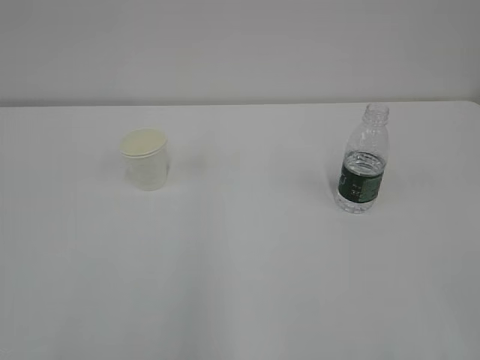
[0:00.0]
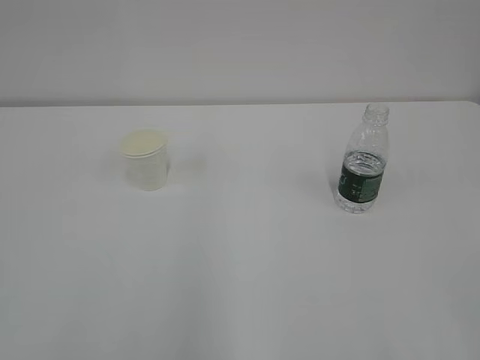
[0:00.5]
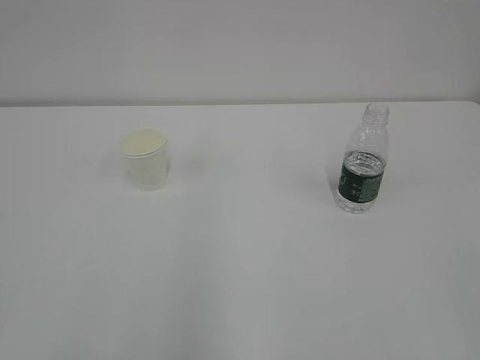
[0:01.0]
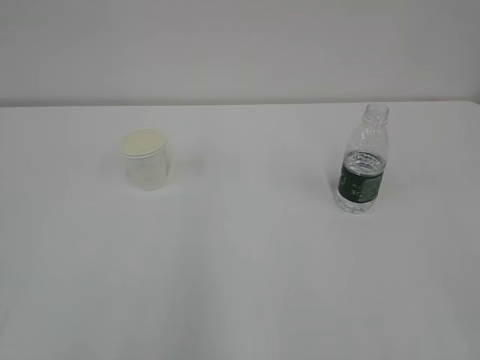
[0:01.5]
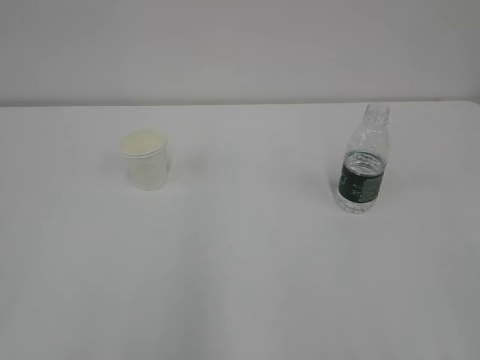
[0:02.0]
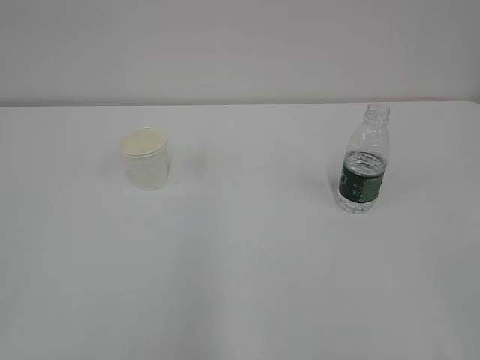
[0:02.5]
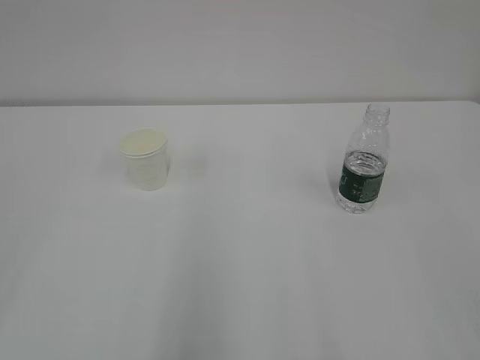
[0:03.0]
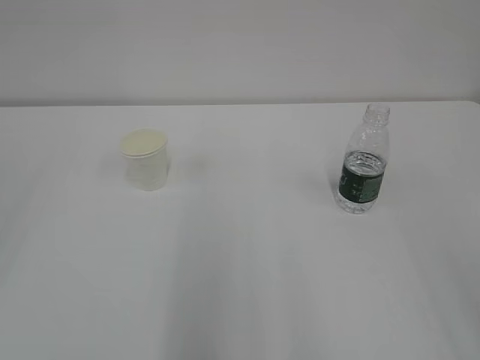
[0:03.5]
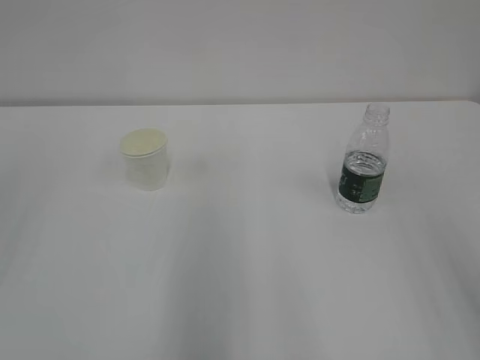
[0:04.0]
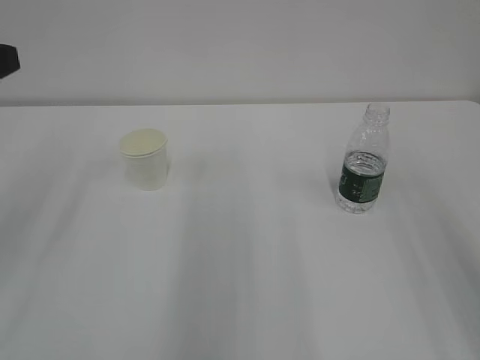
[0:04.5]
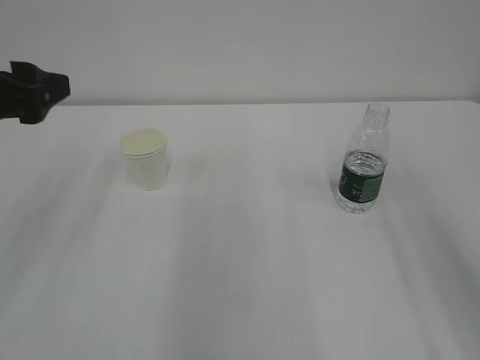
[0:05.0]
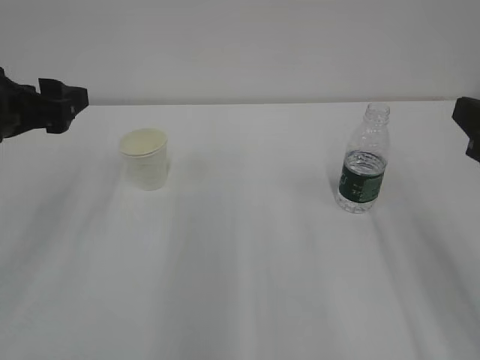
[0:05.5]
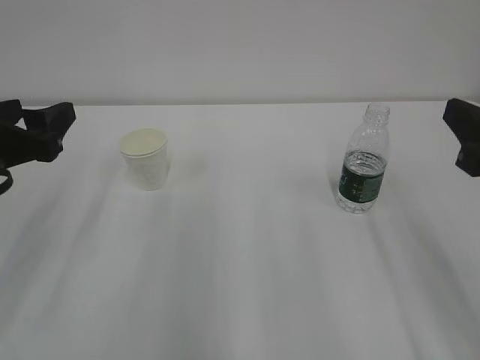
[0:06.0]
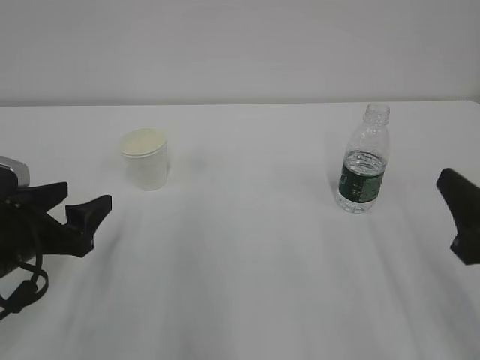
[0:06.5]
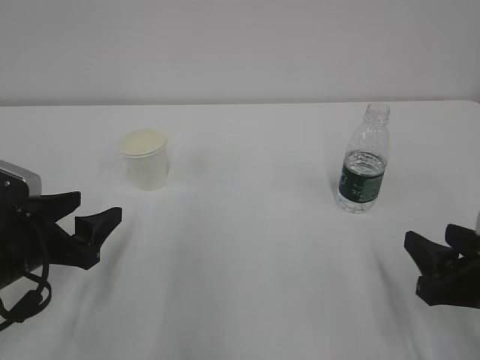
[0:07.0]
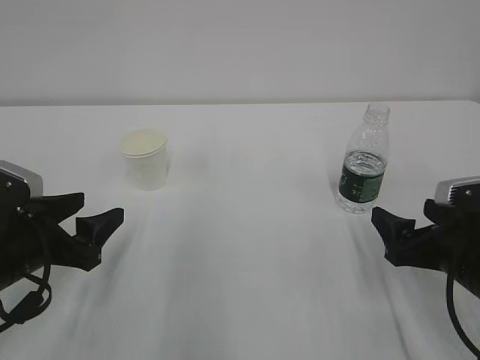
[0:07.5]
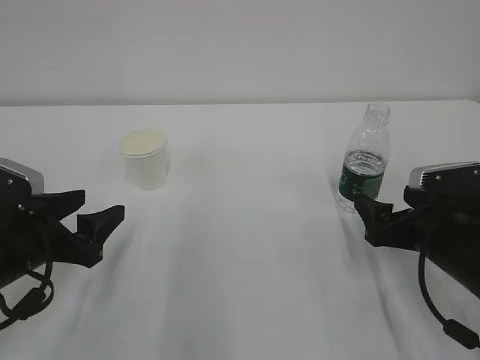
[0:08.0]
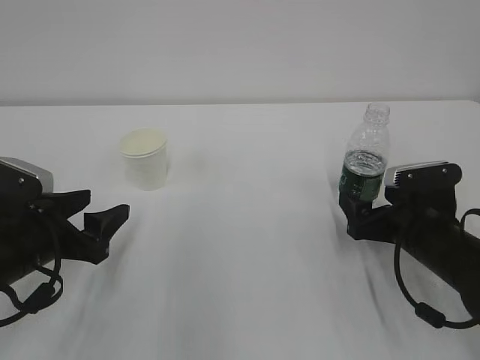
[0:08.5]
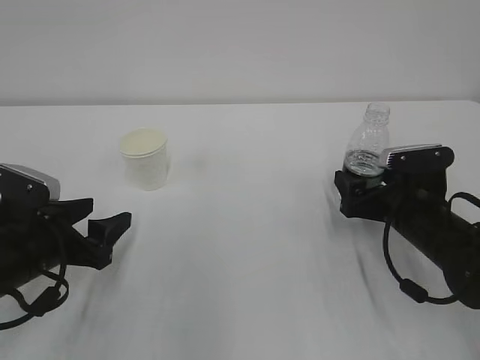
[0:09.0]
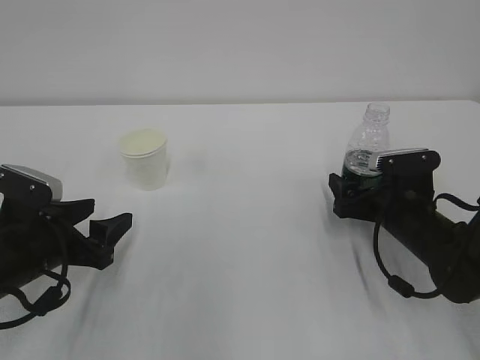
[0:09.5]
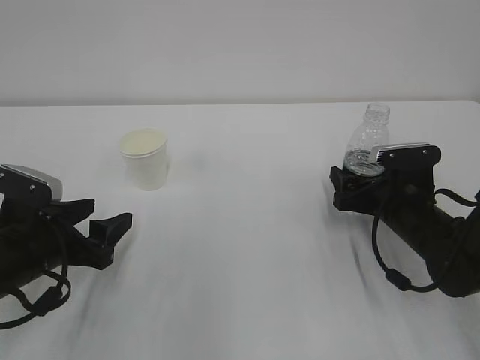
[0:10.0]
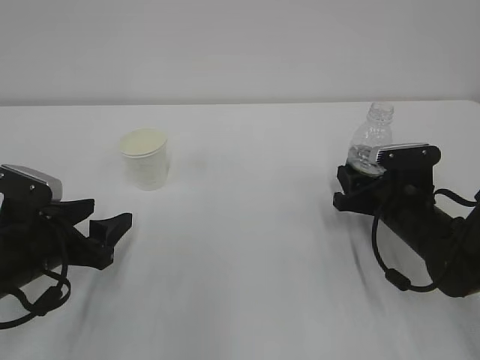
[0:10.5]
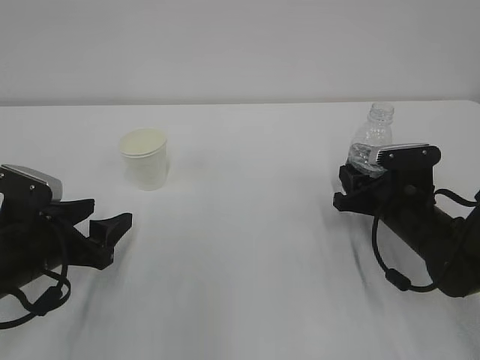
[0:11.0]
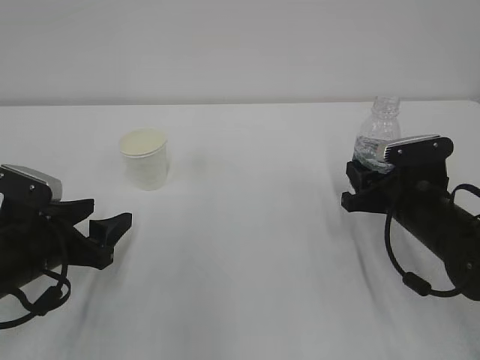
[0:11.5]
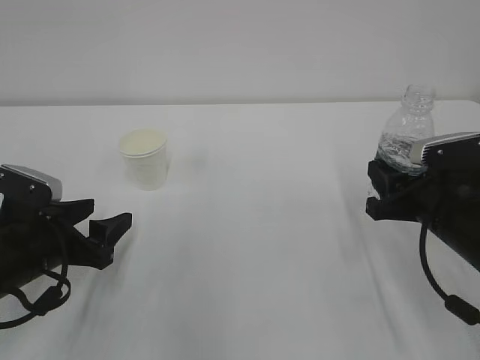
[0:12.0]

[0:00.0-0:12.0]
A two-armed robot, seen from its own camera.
0:04.0 to 0:06.0: The right gripper heads forward and downward, covering roughly 15 cm. The left gripper moves downward, forward and to the right, some 15 cm, and opens its fingers.
0:06.0 to 0:08.0: The left gripper goes about 10 cm downward. The right gripper travels downward and forward by about 15 cm, and opens its fingers.
0:08.0 to 0:10.0: The right gripper heads forward, covering about 10 cm.
0:10.0 to 0:12.0: The right gripper is displaced backward and upward by about 10 cm, and closes up.

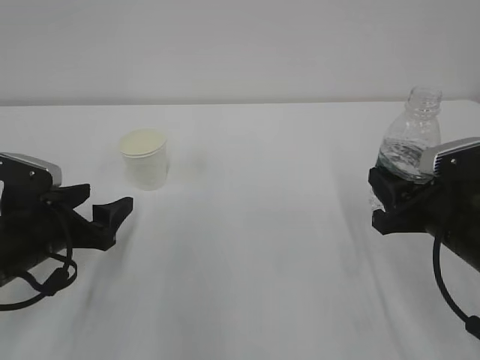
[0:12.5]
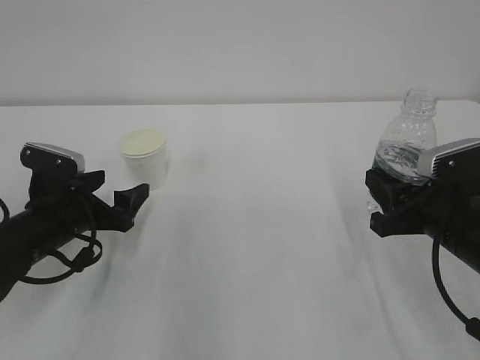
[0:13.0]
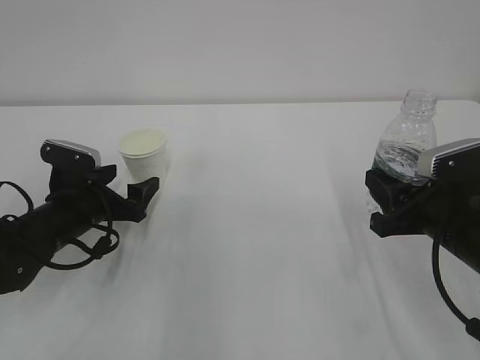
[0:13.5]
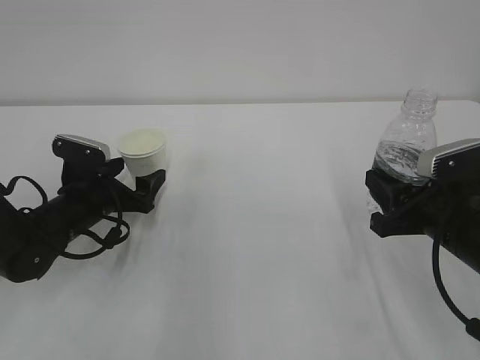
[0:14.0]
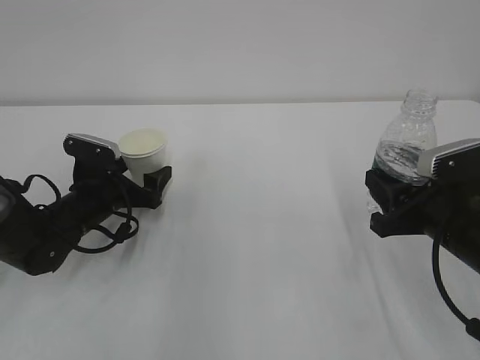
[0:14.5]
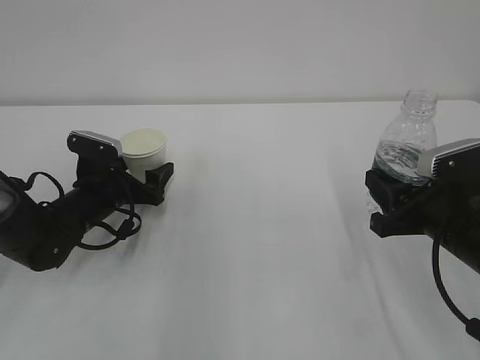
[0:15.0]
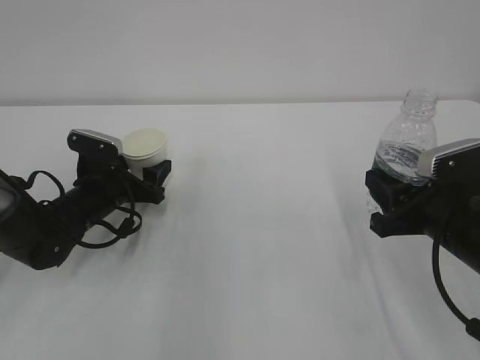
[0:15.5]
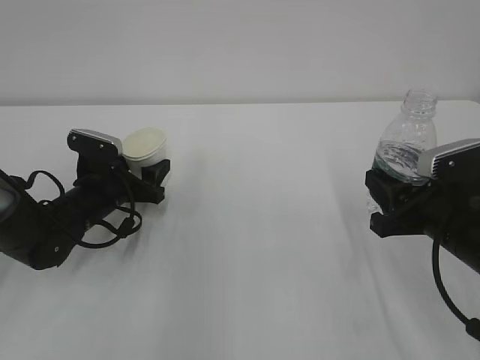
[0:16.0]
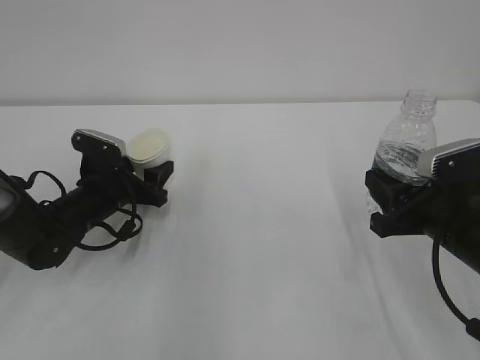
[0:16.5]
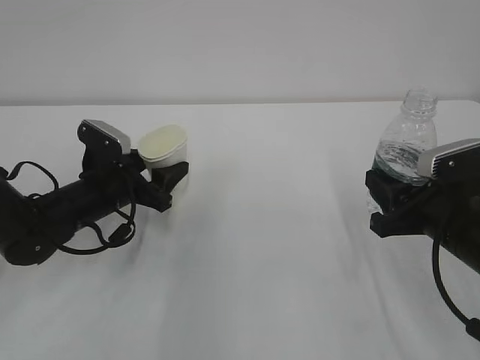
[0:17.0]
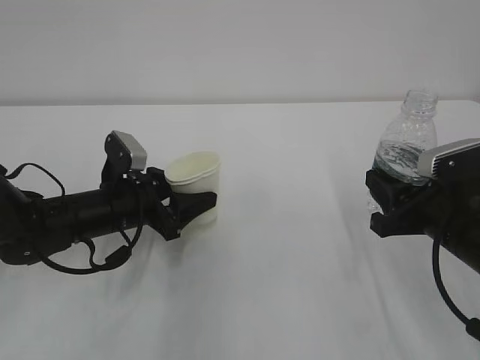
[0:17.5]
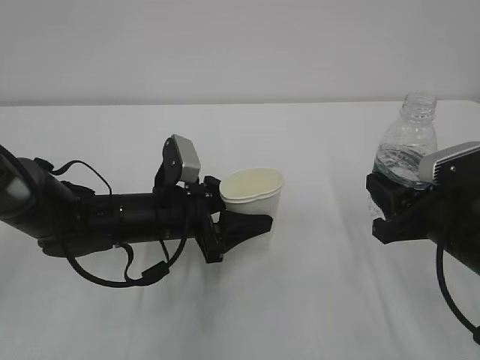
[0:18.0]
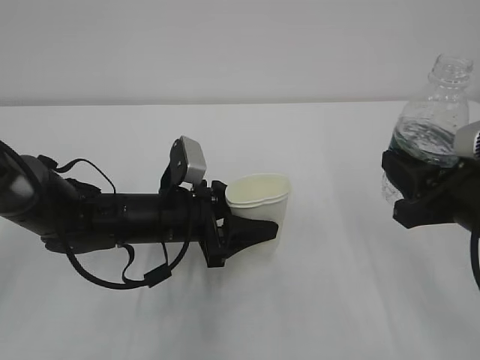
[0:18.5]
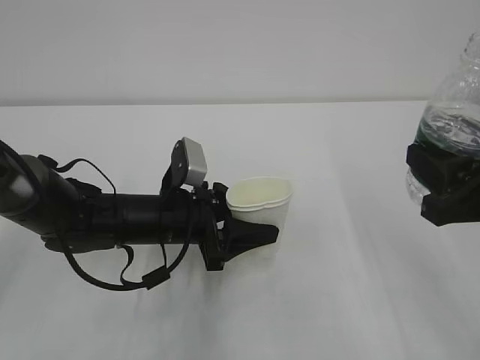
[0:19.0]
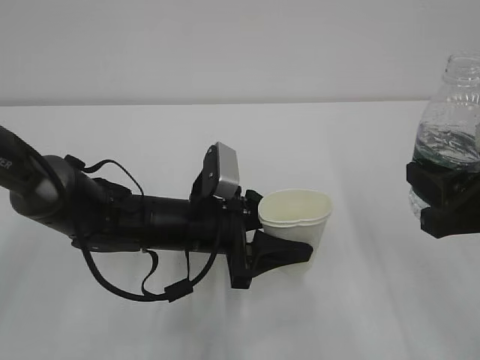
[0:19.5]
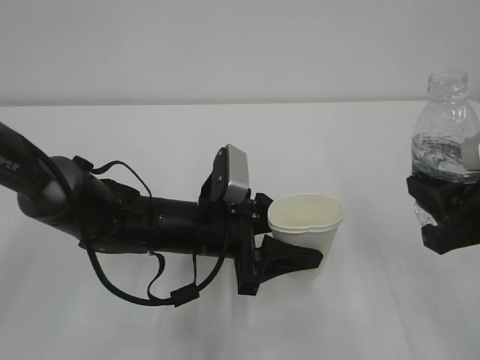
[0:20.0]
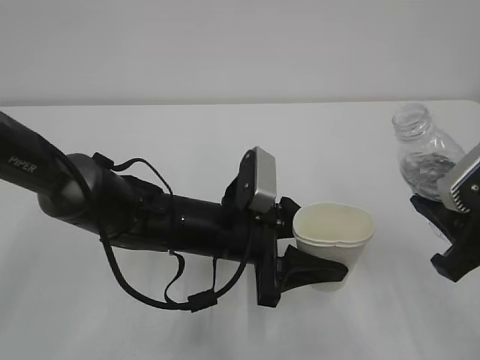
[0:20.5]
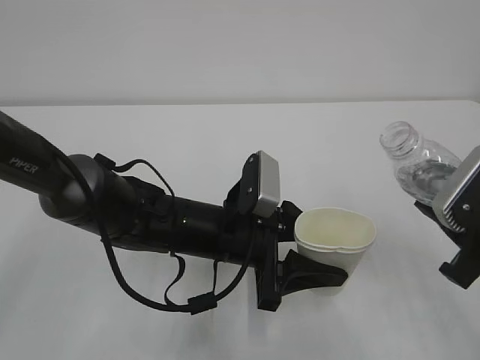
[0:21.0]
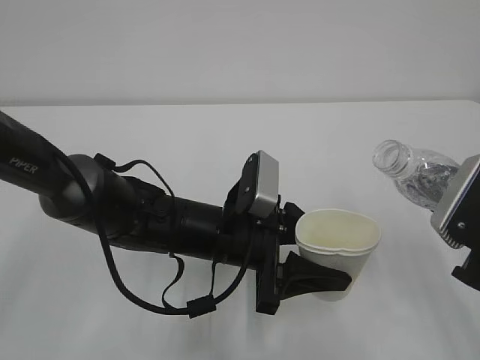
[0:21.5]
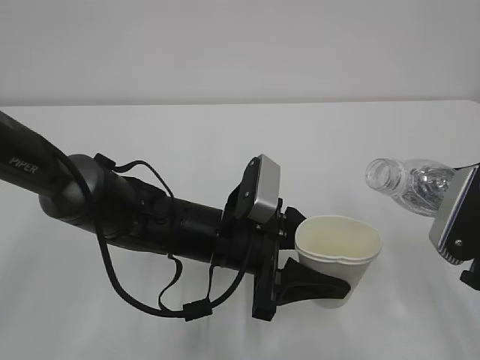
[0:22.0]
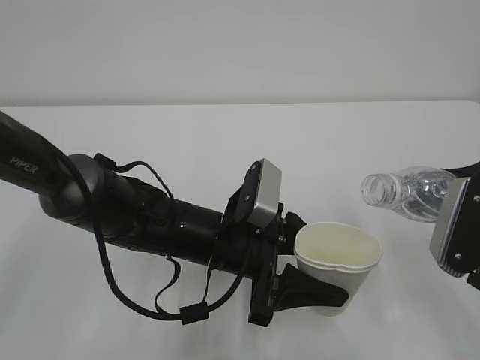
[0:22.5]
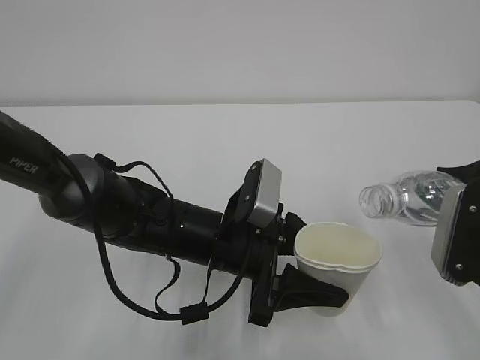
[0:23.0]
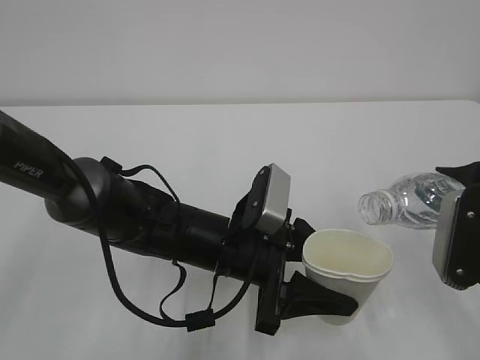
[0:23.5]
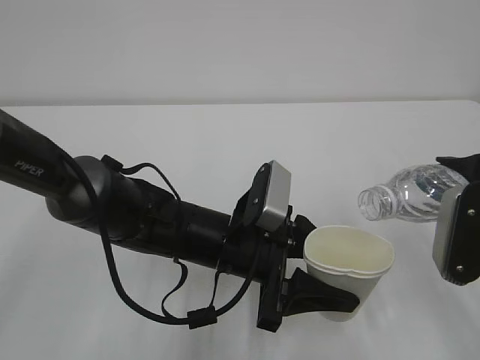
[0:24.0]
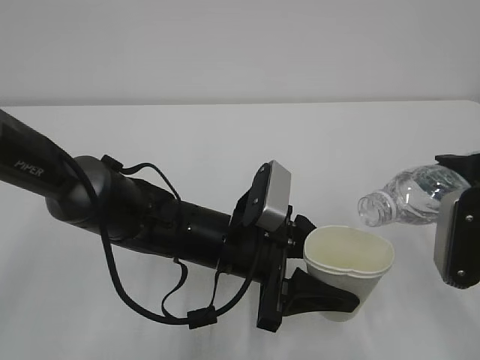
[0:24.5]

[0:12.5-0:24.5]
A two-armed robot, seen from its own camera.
0:12.5 to 0:14.5: The left gripper moves forward, roughly 10 cm.
0:14.5 to 0:16.5: The left gripper closes up.
0:16.5 to 0:18.5: The left gripper is displaced to the right and backward by roughly 15 cm. Meanwhile the right gripper shifts by about 5 cm.
0:18.5 to 0:20.5: The left gripper goes roughly 5 cm to the right.
0:22.5 to 0:24.5: The grippers move only a little.

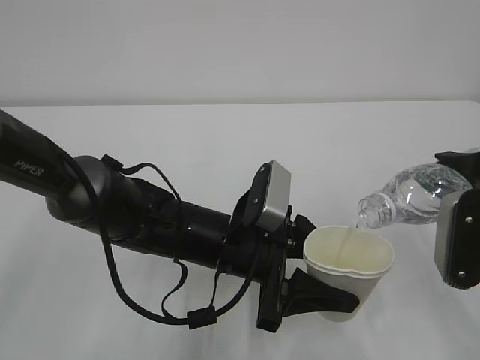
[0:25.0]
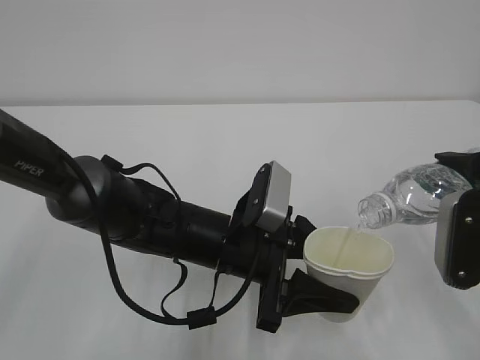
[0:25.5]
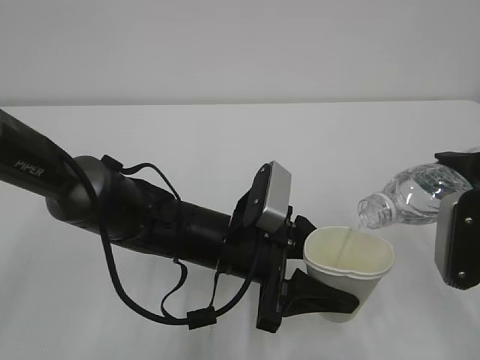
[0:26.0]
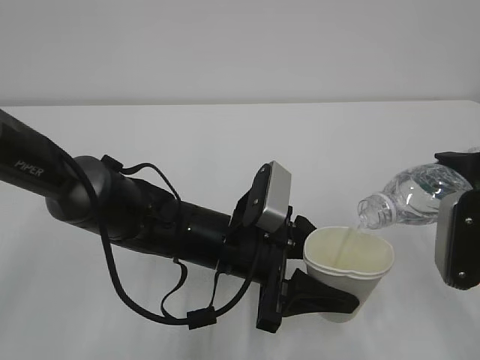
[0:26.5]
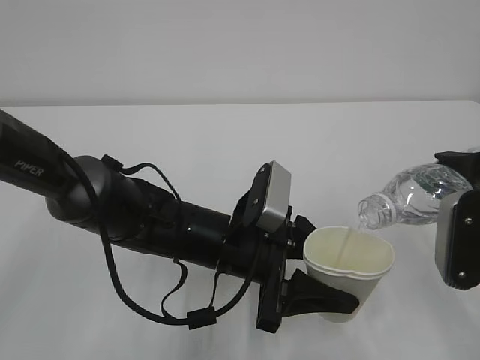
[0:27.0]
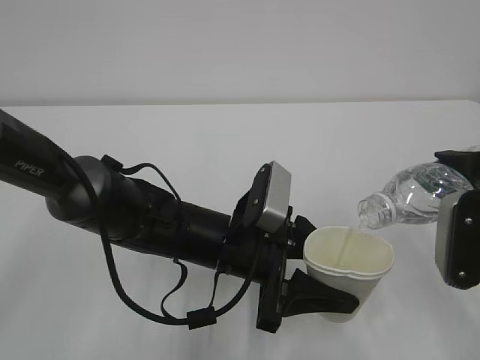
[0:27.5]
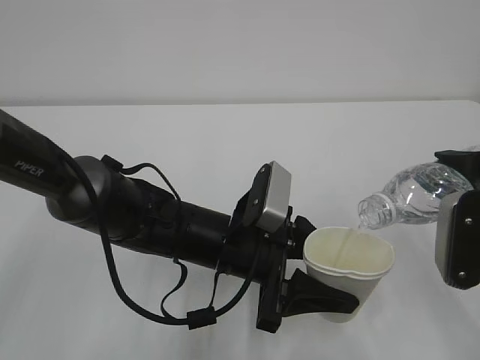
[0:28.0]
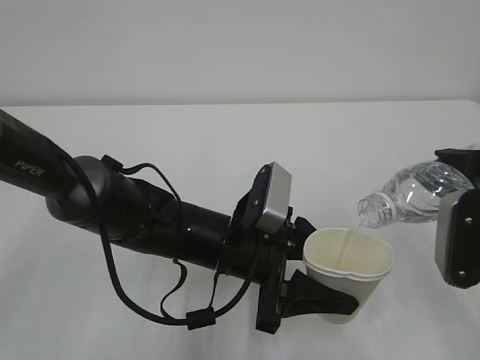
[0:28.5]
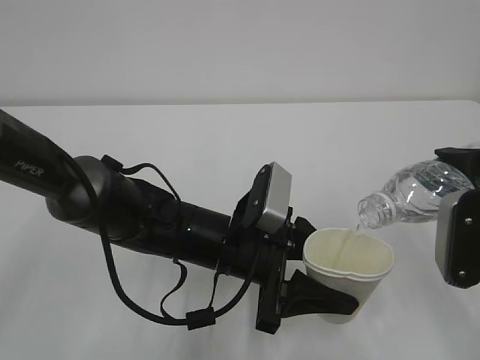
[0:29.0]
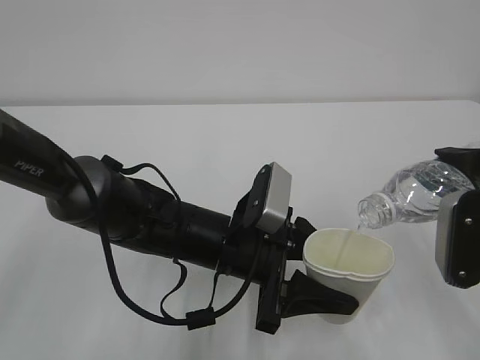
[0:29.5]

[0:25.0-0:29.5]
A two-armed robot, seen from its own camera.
0:25.0 to 0:29.5: Both grippers stay put.
